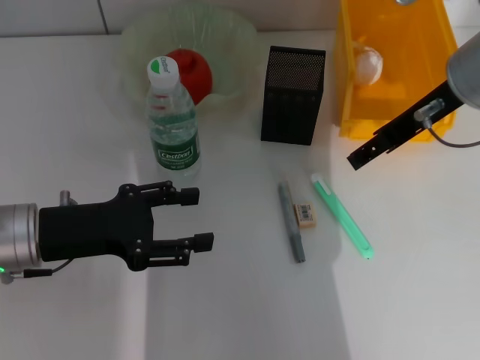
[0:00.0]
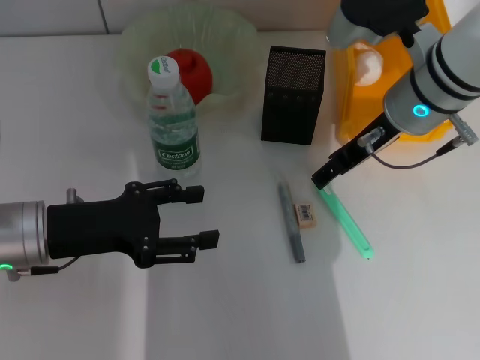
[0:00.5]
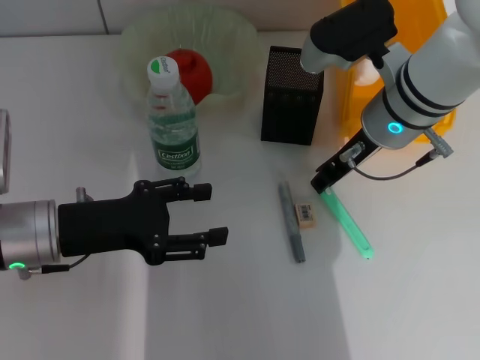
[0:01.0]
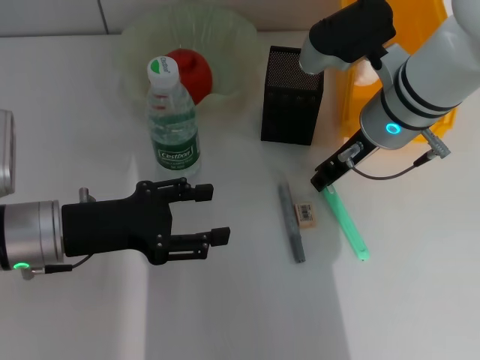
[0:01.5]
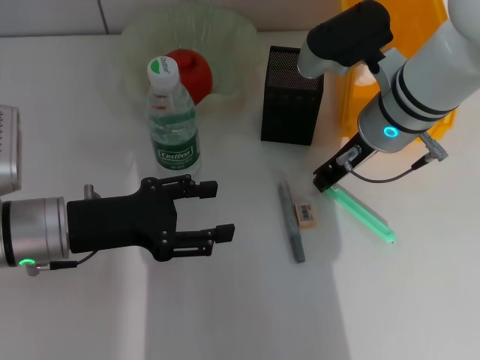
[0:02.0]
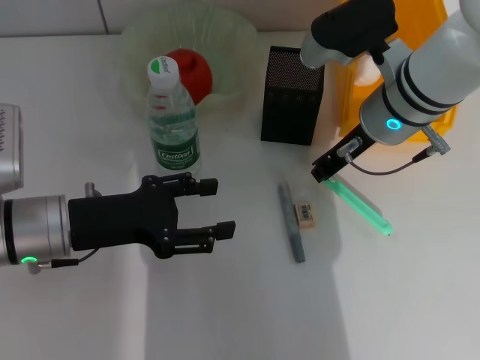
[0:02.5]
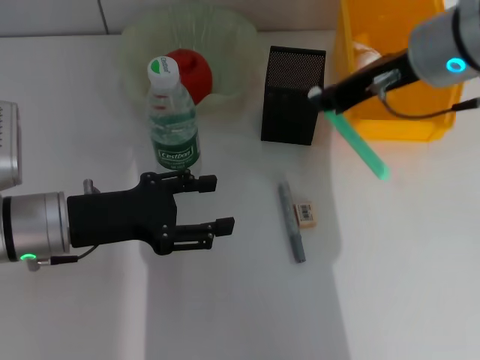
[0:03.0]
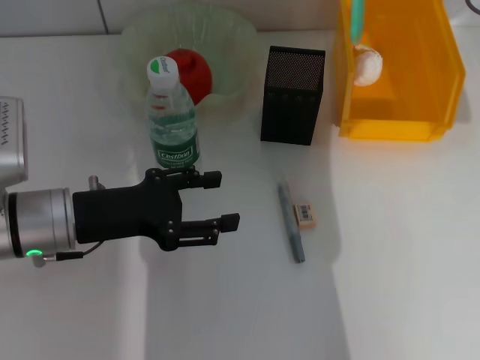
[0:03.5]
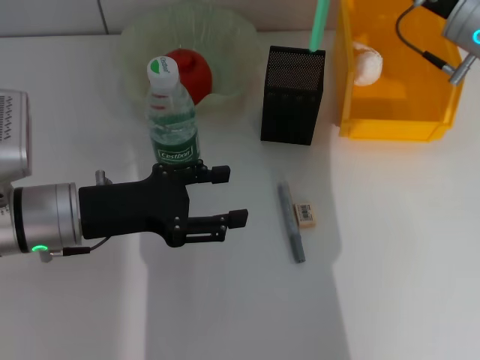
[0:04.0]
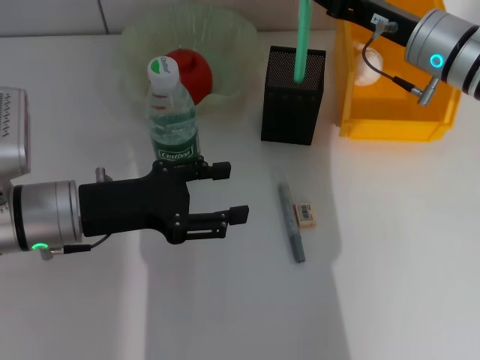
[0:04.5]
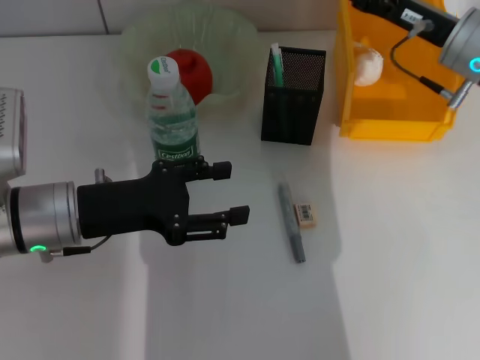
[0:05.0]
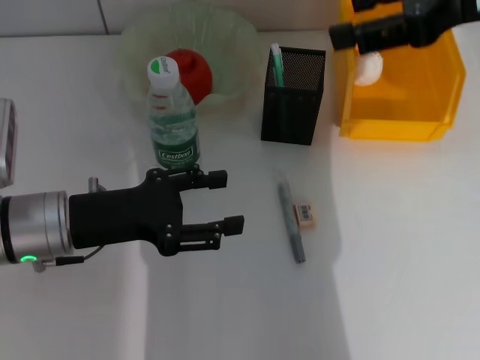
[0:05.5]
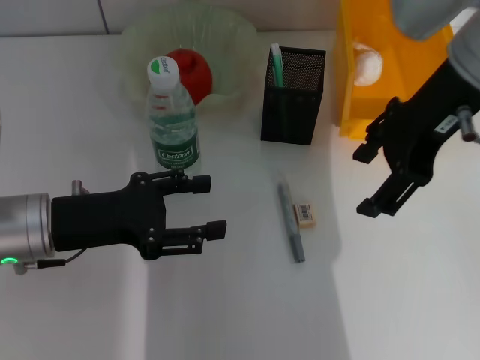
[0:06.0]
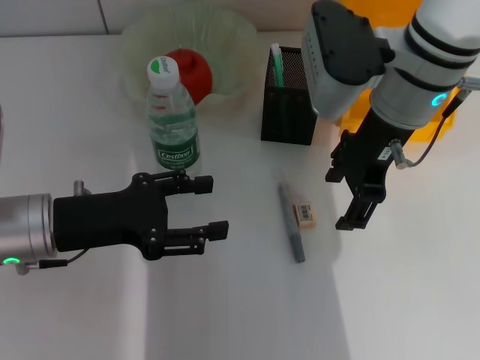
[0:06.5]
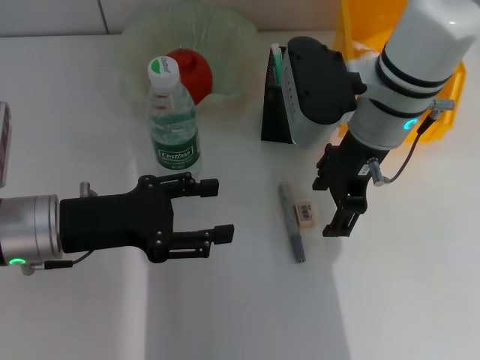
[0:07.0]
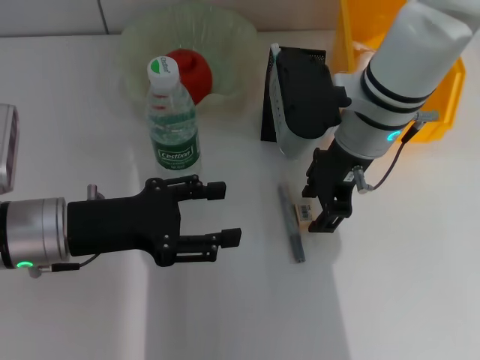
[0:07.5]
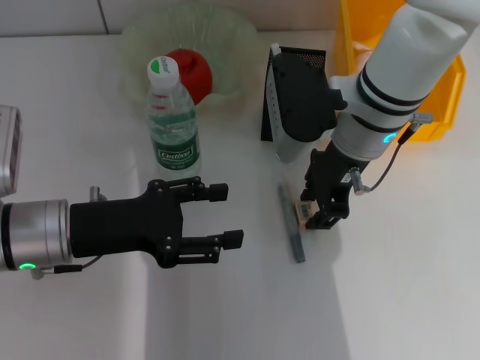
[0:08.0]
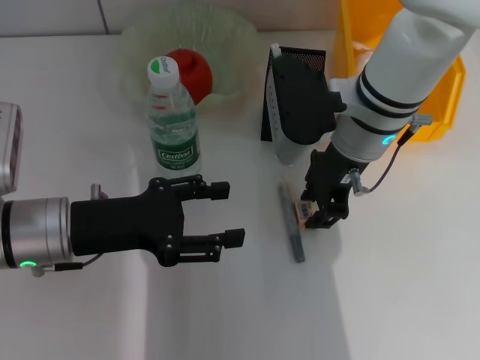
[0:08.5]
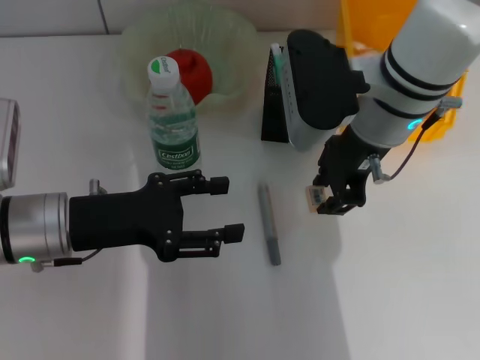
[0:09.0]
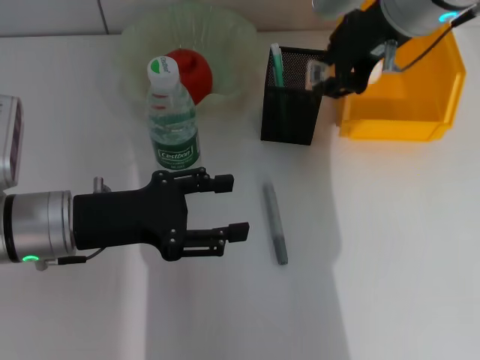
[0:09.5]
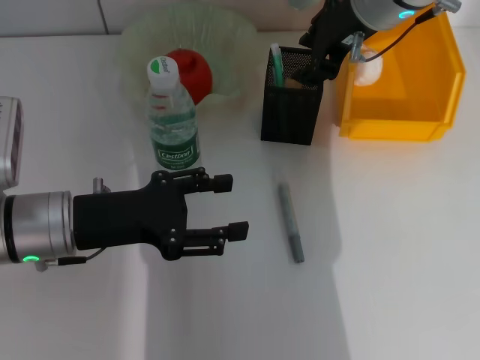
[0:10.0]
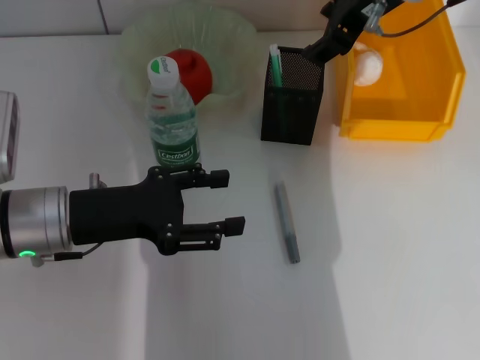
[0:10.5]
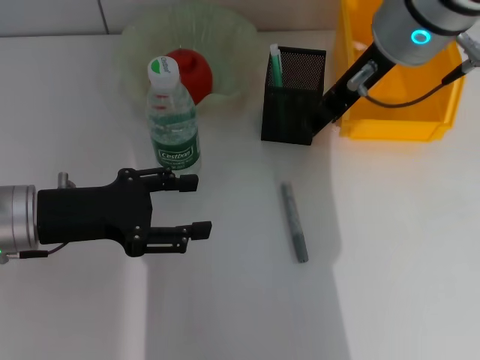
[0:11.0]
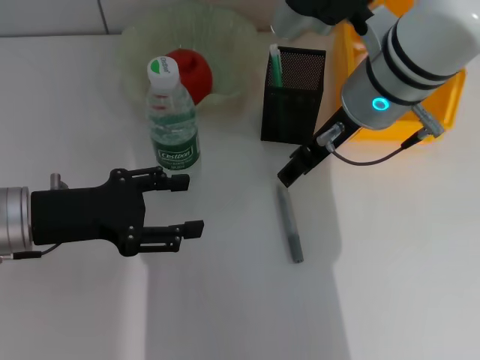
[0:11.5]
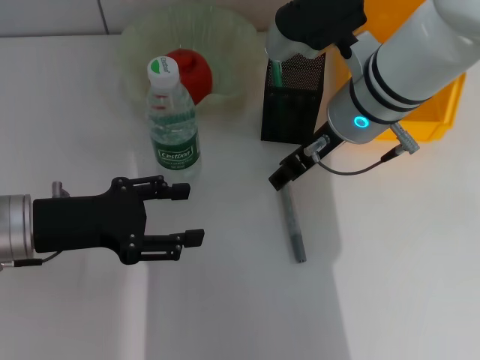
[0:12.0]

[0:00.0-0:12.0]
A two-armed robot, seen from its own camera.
Step, 0:00.0 to 0:02.0: Grab the blue utility knife with the right hand.
Step, 0:02.5 to 0:05.0: Place the blue utility knife into the pen holder with the right hand.
Step, 0:05.5 to 0:08.5: Grab the eraser with the right hand.
Step, 0:09.0 to 0:10.0: Put the eraser into the pen holder with the right hand.
0:00.0 to 0:02.0: The right gripper travels downward and to the left by about 10 cm, and closes.
0:02.0 to 0:04.0: The right gripper travels to the right by roughly 10 cm.
0:04.0 to 0:06.0: The right gripper goes roughly 15 cm upward, to the left and backward, and opens its fingers.
0:06.0 to 0:08.0: The right gripper travels downward and to the left by approximately 15 cm, and closes up.
0:08.0 to 0:10.0: The right gripper travels upward by about 10 cm.
0:10.0 to 0:12.0: The right gripper moves downward and backward, approximately 10 cm.

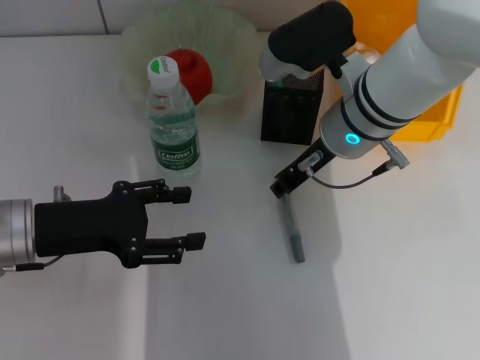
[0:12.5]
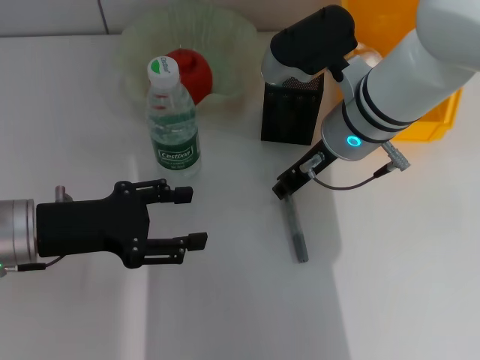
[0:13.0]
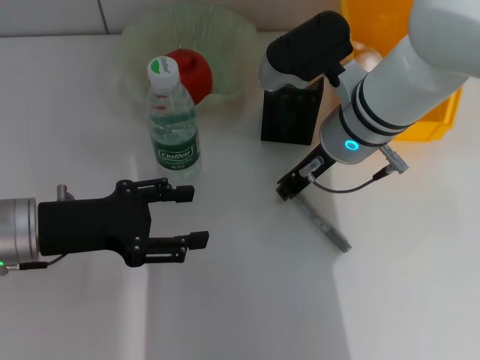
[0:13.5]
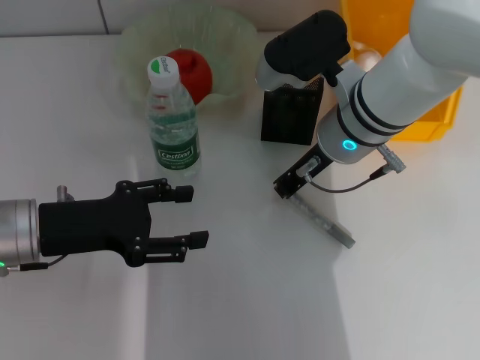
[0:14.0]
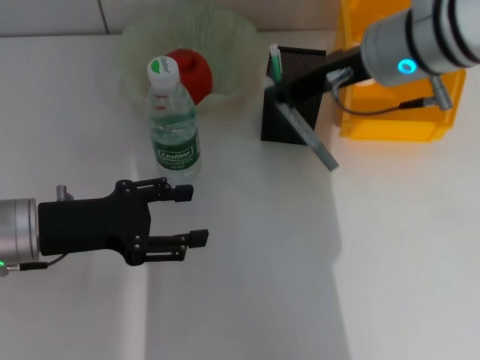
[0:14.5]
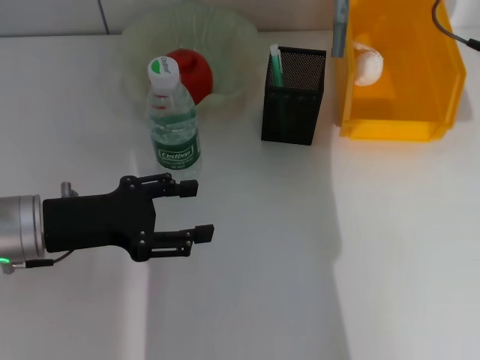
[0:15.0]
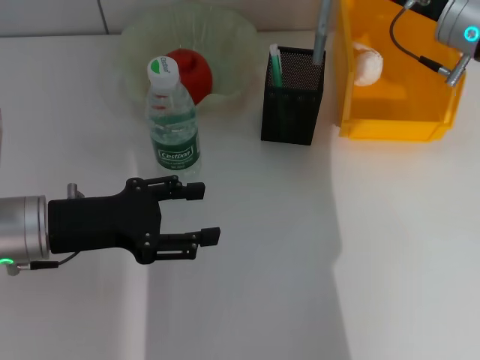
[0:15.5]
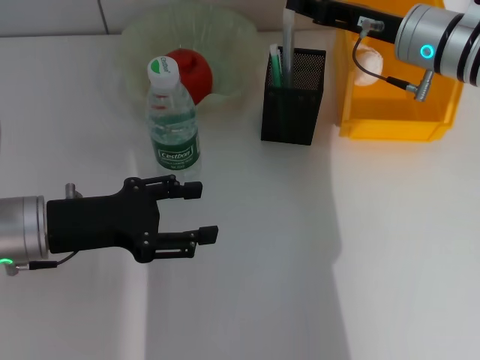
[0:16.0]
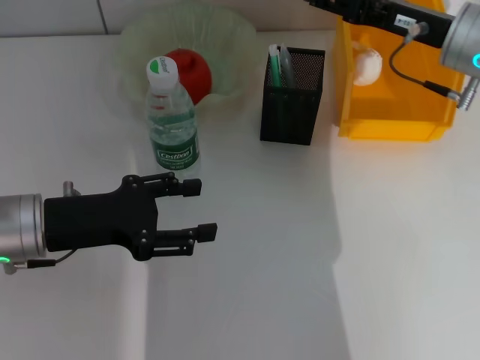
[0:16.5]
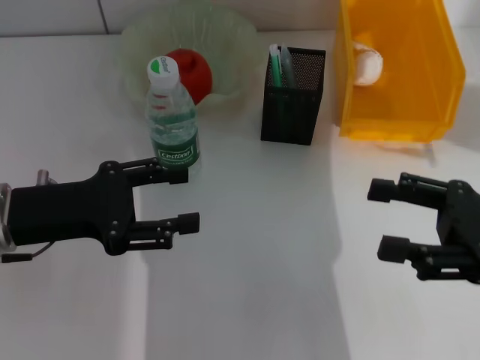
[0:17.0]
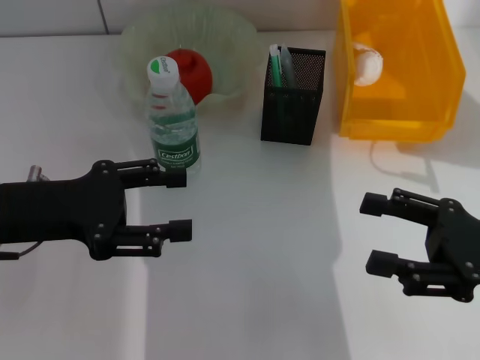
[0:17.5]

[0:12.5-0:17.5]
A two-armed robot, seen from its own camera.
Step, 0:14.0 to 0:16.0: Place the gray glue into the pen holder with the right hand.
0:12.5 to 0:15.0: The right gripper heads to the right and upward, covering about 15 cm, and closes.
0:15.0 to 0:17.5: The right gripper is displaced backward and downward by approximately 20 cm, and opens.
